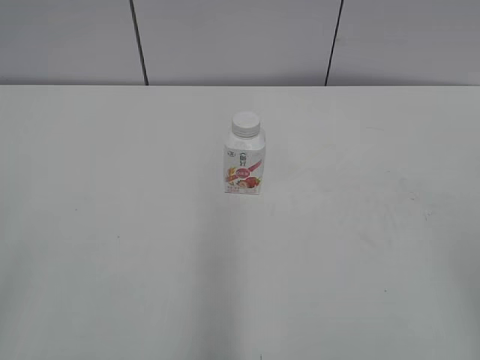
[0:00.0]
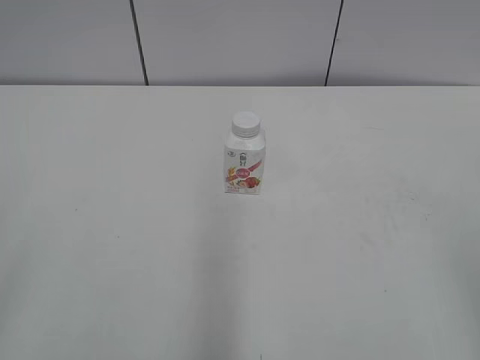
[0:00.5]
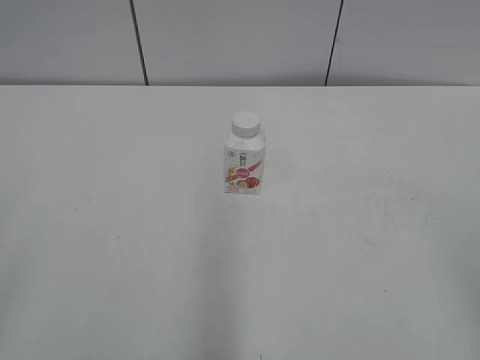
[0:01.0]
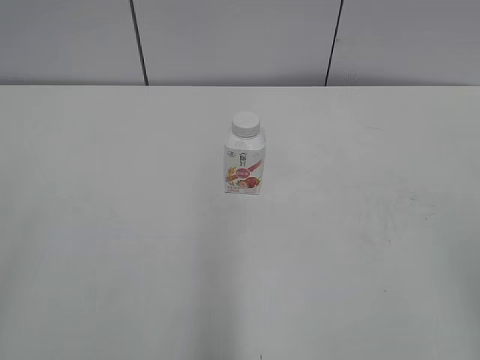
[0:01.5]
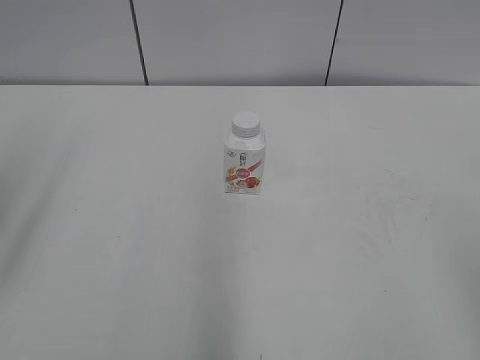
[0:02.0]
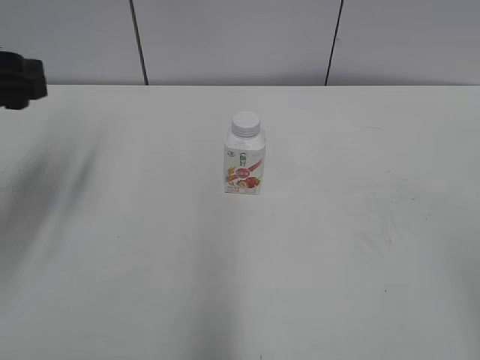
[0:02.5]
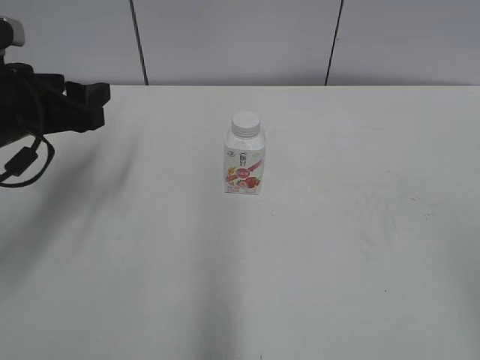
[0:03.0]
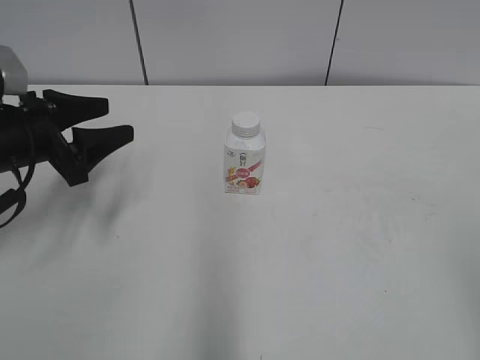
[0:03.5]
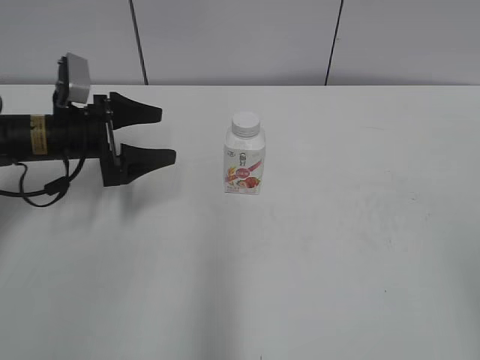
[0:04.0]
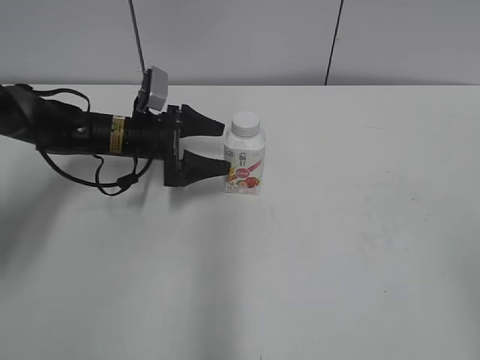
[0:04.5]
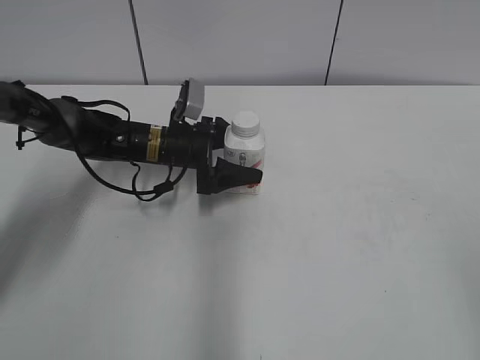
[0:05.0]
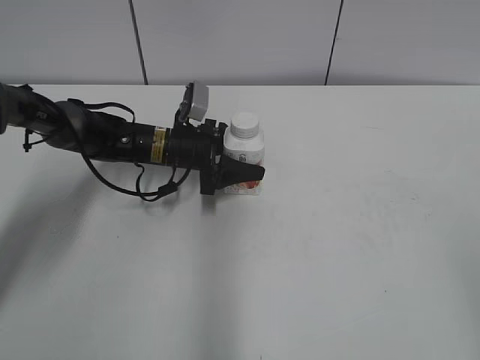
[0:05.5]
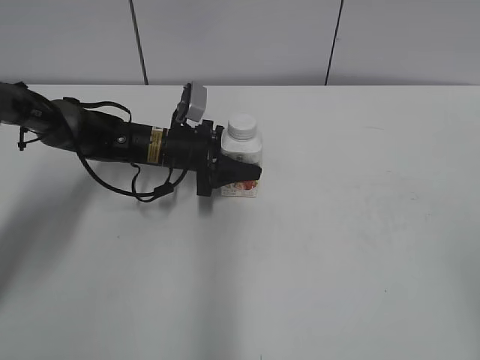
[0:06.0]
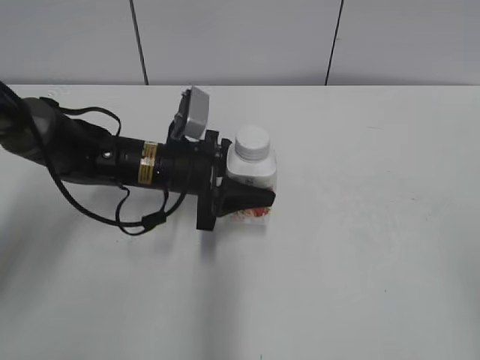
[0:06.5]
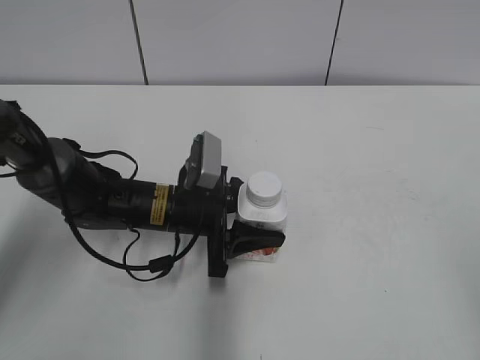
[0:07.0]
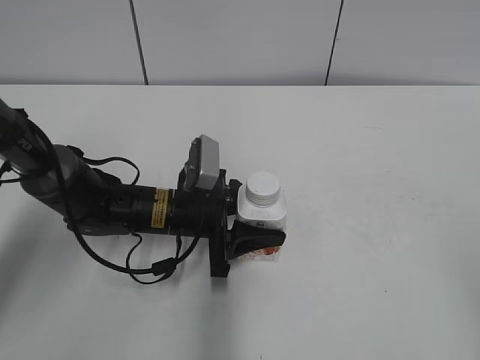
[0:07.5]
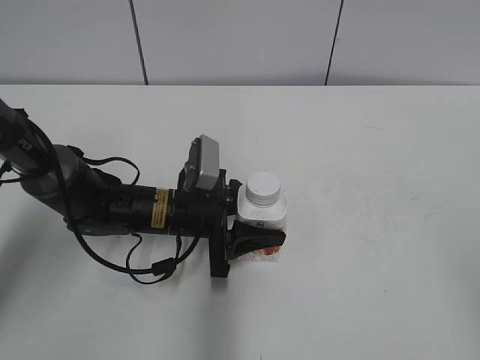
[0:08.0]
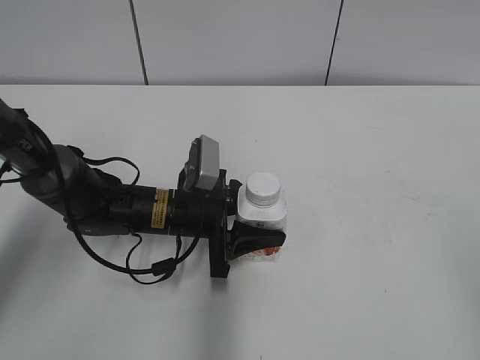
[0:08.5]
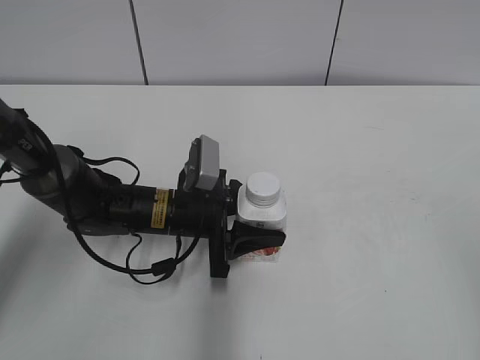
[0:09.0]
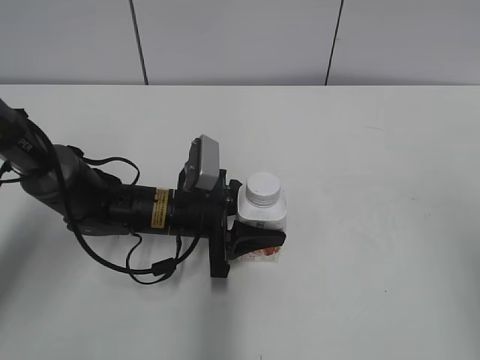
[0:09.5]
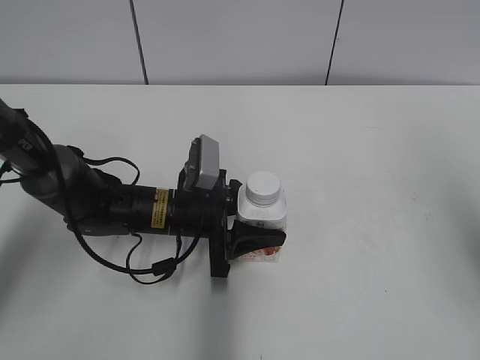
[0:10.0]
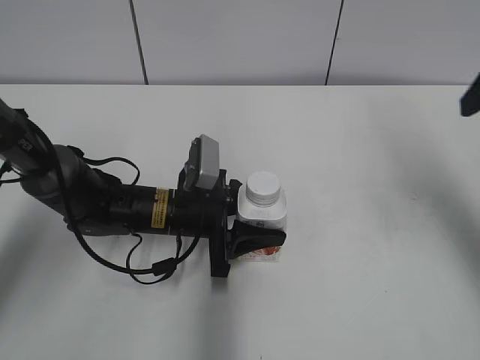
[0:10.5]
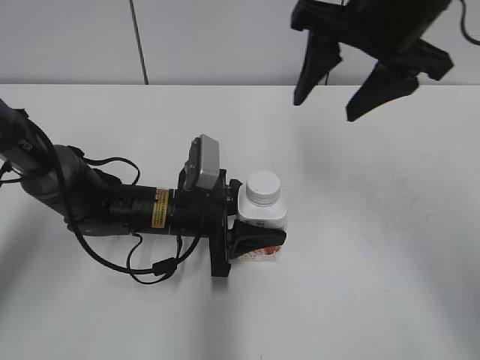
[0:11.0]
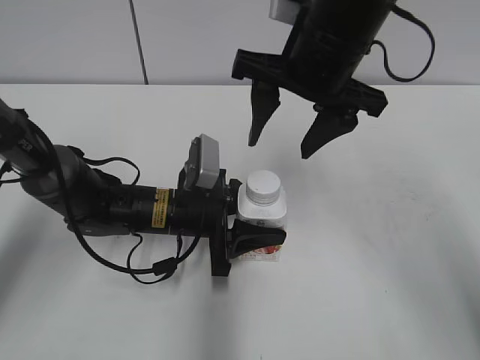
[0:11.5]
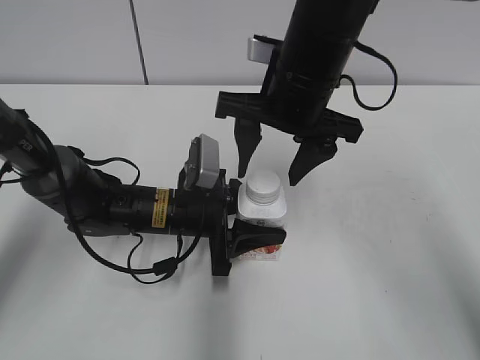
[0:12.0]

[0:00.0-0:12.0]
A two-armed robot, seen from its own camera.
Step, 0:00.0 to 0:05.5: Grasp the bottle and move it to the center of the table with the left gripper.
Step, 0:06.0 to 0:07.5: Lift the bottle and move it to the center of the table with the left gripper.
0:02.0 to 0:04.0: The left gripper goes some 35 cm forward and downward, and opens its fingers.
0:04.0 to 0:06.0: The left gripper heads to the right, forward and downward, covering approximately 15 cm, and closes its fingers.
0:06.0 to 0:08.0: The left gripper travels backward by roughly 10 cm.
0:08.0 to 0:10.0: The right gripper moves forward and upward, some 15 cm.
0:10.0 to 0:12.0: The right gripper travels to the left, forward and downward by some 30 cm.

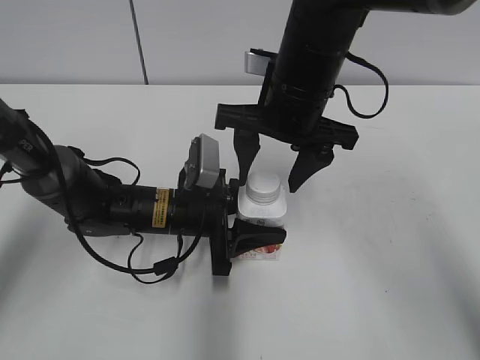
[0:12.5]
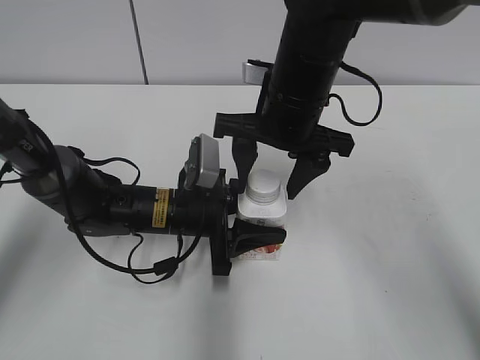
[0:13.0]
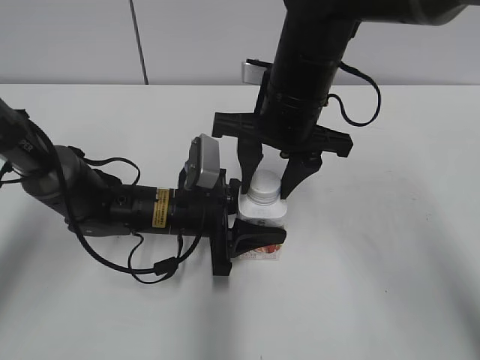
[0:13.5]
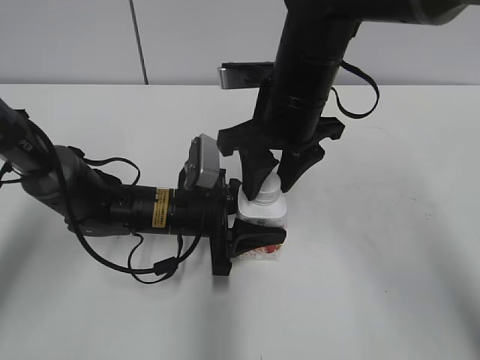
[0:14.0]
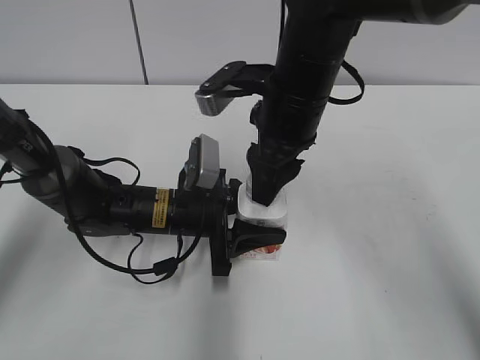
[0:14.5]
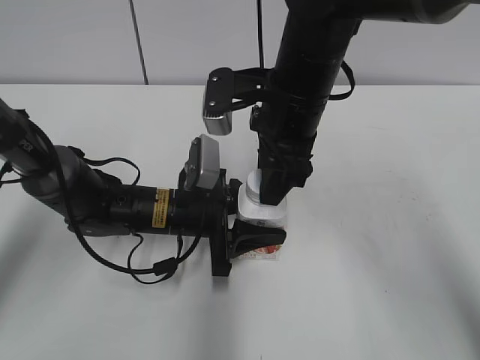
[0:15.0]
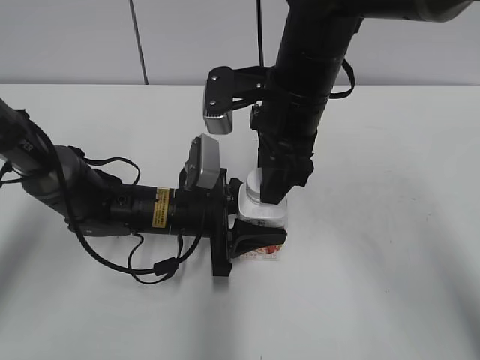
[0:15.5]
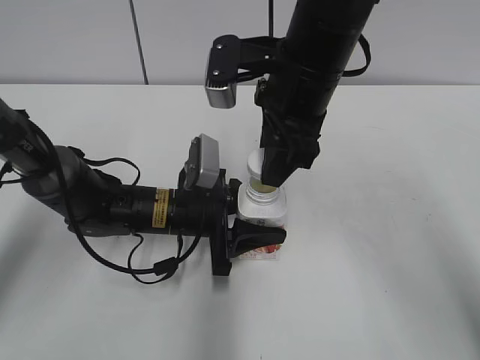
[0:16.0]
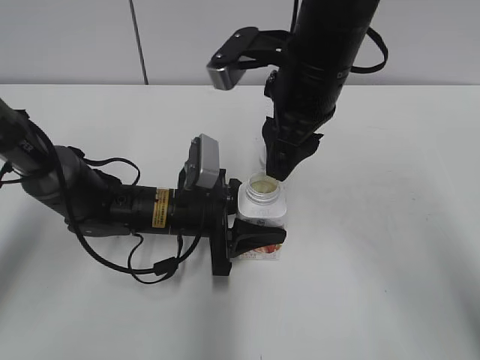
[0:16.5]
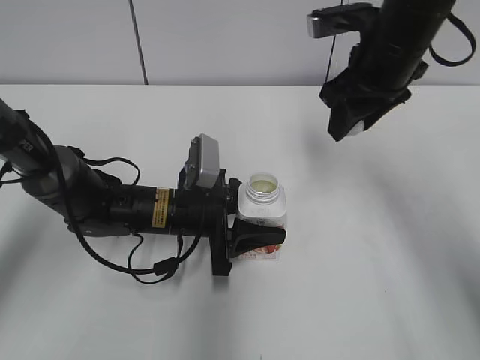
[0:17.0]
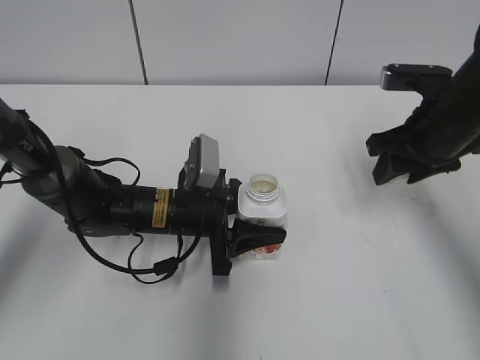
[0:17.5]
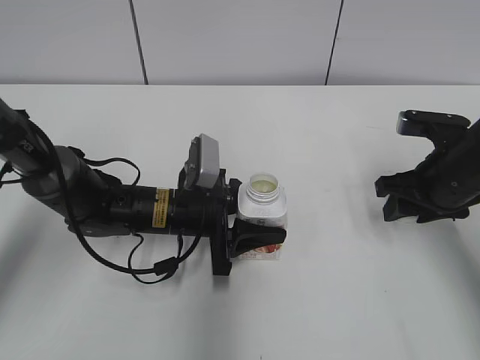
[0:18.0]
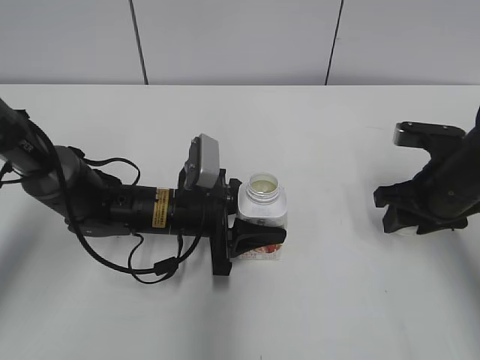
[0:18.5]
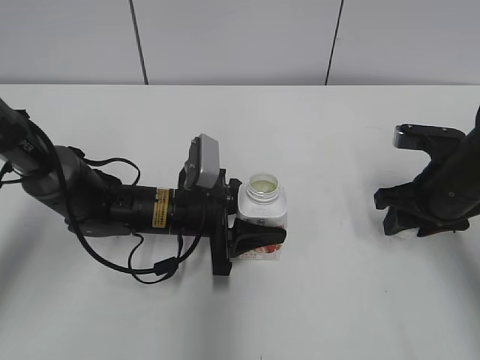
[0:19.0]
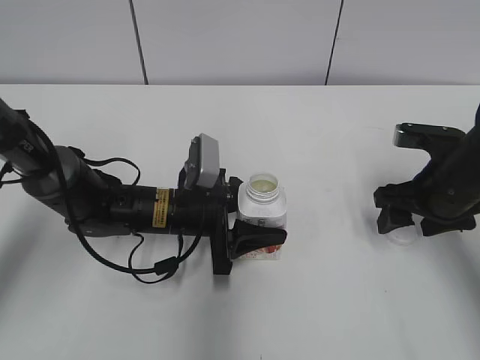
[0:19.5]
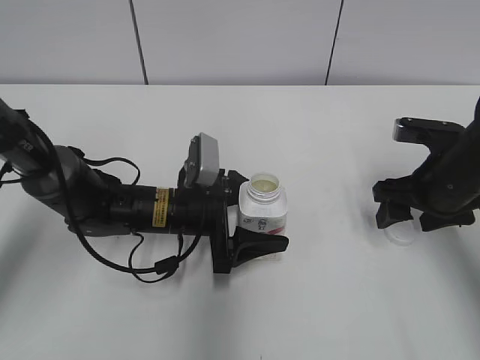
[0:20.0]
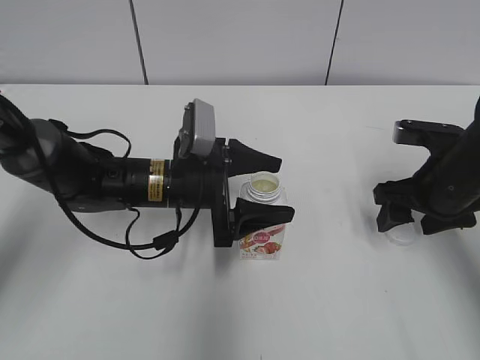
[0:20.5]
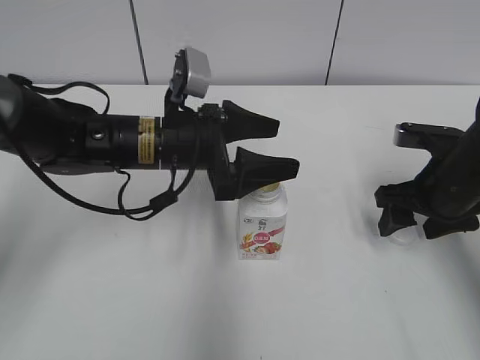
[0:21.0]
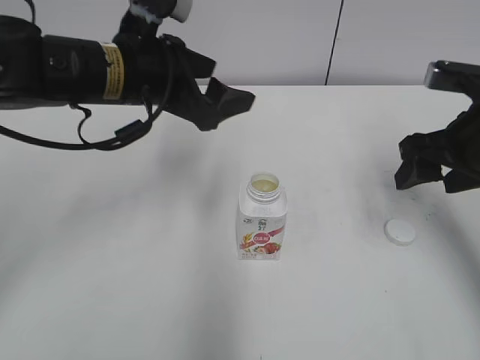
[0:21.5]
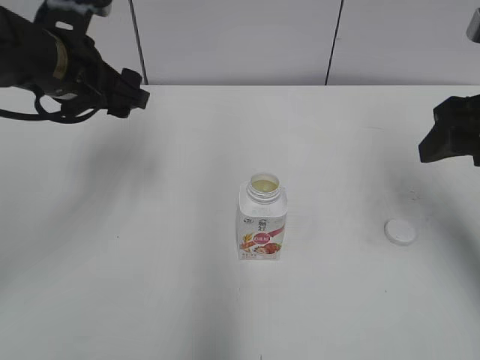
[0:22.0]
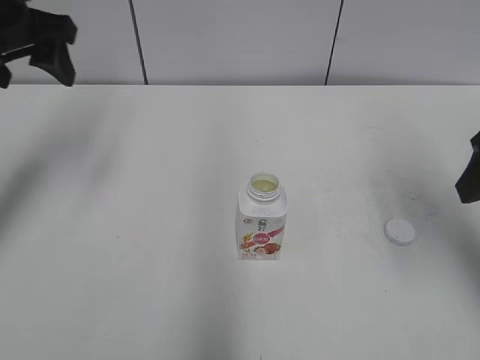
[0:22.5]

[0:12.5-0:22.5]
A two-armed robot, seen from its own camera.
Step, 0:12.5 to 0:16.0: Unscrew the bottle cap with the right gripper while holding the bottle with the left gripper.
Step, 0:17.0 to 0:19.0: Place the bottle cap on the table with the right gripper.
0:12.5 to 0:14.5: The right gripper closes.
0:16.5 to 0:18.5: The right gripper moves to the right and downward, about 20 cm.
0:18.5 to 0:20.5: The left gripper opens up, while the right gripper opens its fingers.
0:20.5 to 0:22.5: The left gripper travels upward and to the left by about 25 cm. The right gripper goes approximately 15 cm upward and backward.

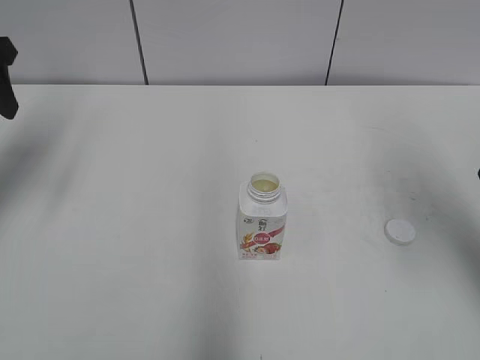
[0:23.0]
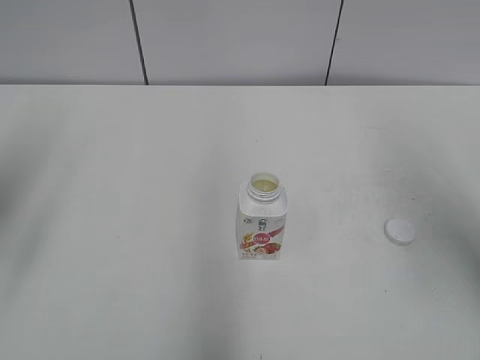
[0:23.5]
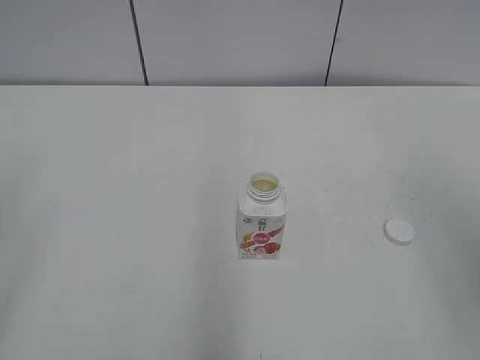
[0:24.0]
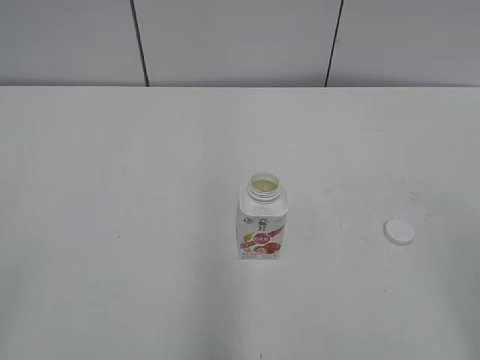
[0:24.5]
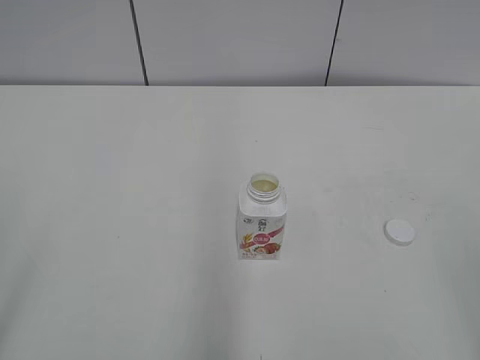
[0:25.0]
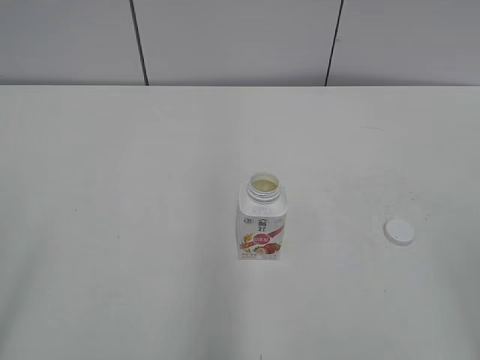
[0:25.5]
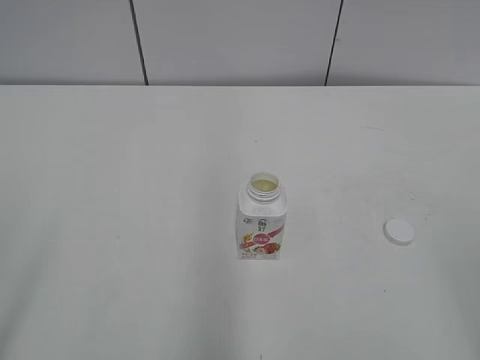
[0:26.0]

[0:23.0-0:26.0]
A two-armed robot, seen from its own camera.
0:23.0 to 0:24.5: The right gripper shifts some 20 cm backward, and closes its fingers, while the left gripper is displaced backward by roughly 35 cm.
